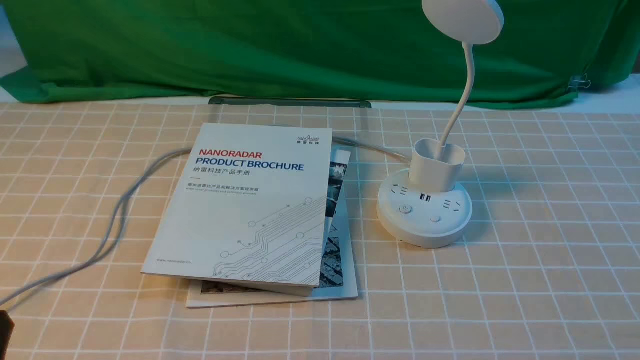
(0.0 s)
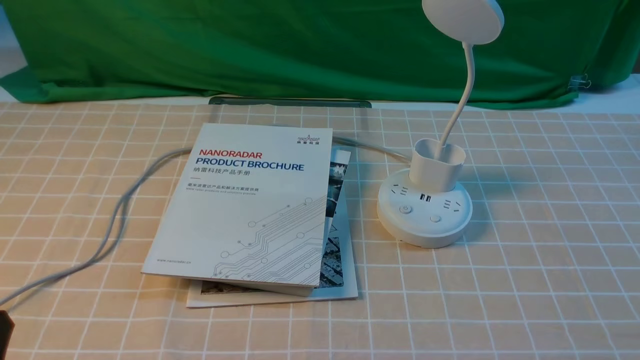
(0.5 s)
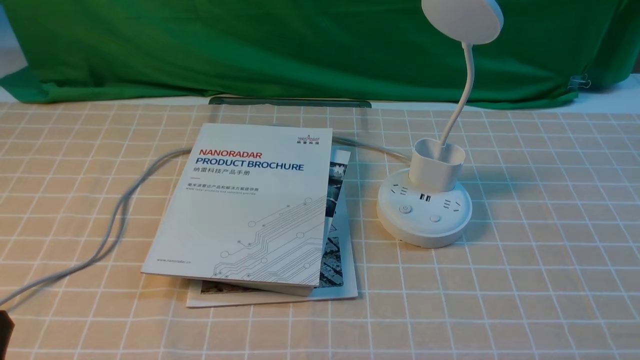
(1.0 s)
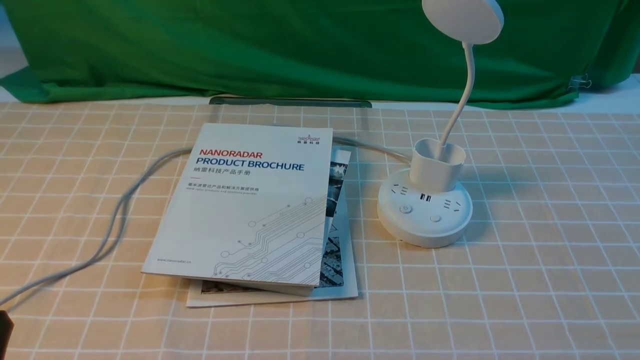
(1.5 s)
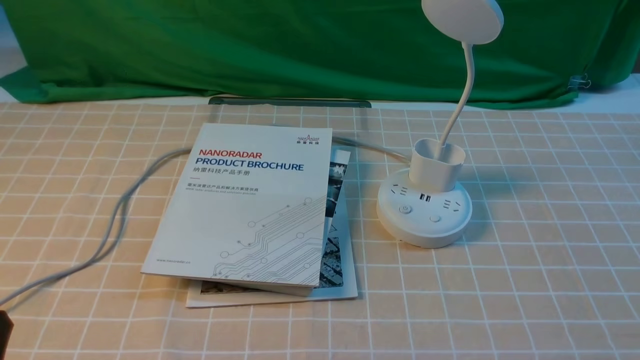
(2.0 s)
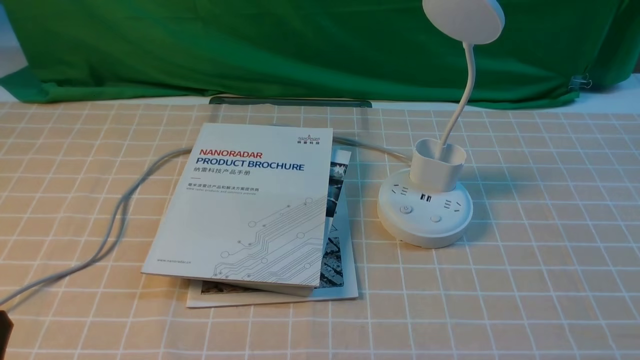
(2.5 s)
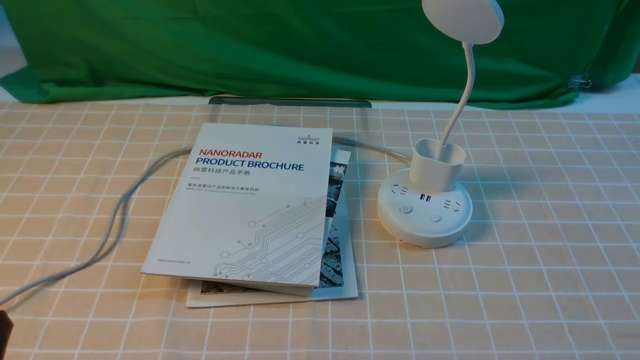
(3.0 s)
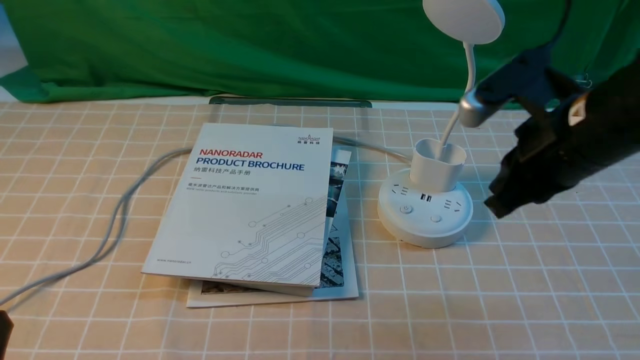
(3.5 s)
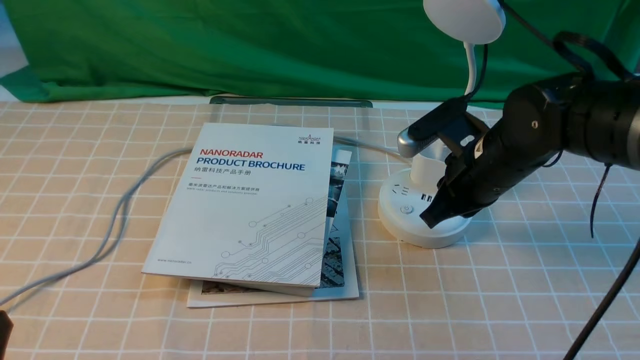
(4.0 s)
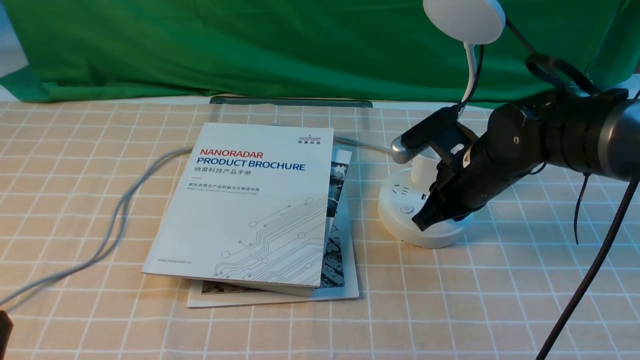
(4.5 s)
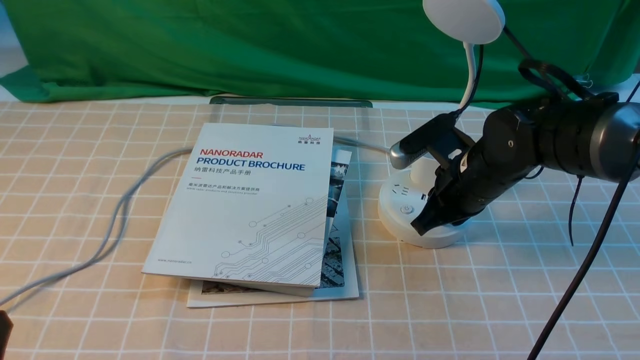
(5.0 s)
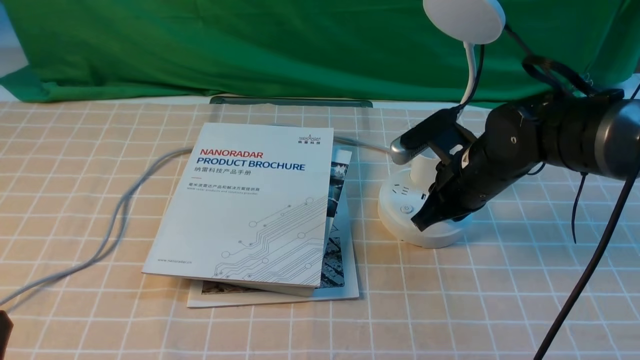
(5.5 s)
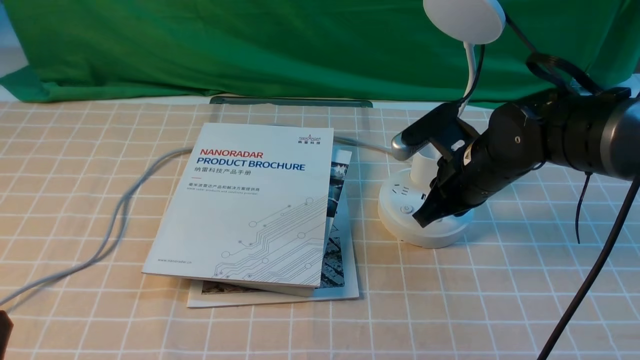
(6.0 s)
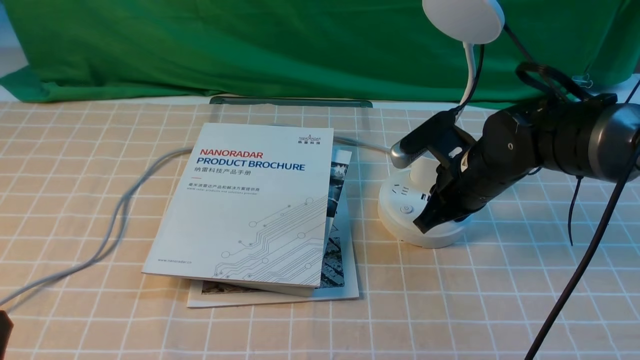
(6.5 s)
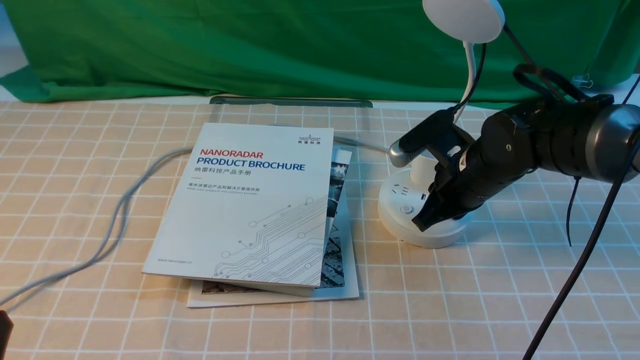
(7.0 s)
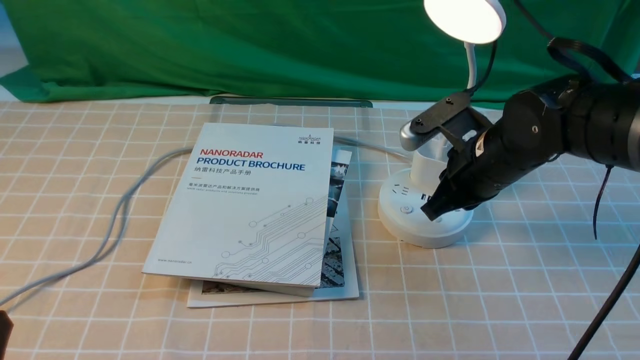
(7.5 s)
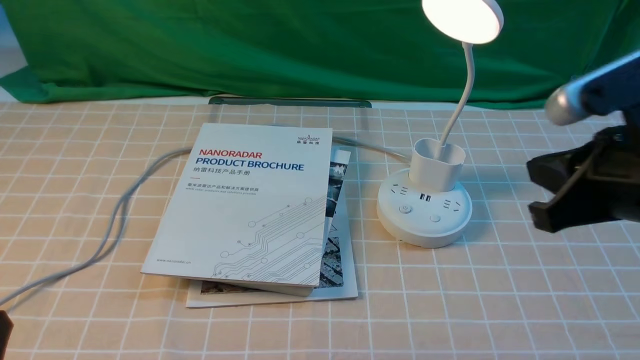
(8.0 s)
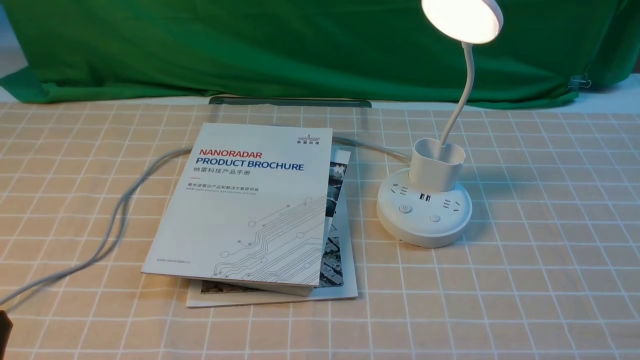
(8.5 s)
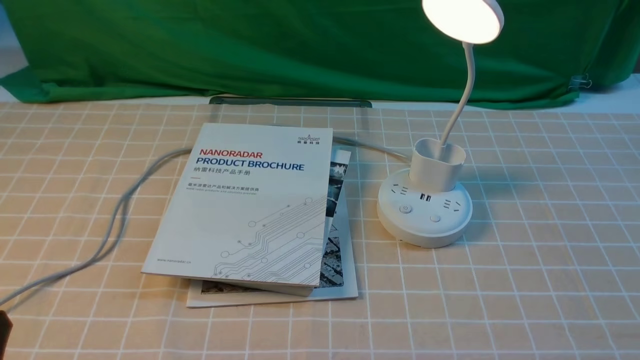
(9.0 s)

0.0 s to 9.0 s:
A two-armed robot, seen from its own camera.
Step, 0.0 to 7.5 s: use the right arm to press the button switch on the lamp holder.
2.0 to 4.5 s: The right gripper heads forward and to the left, covering roughly 35 cm, and closes its fingers.
4.5 to 7.0 s: Both grippers stay put.
7.0 to 9.0 s: The right gripper shifts about 35 cm backward, upward and to the right.
